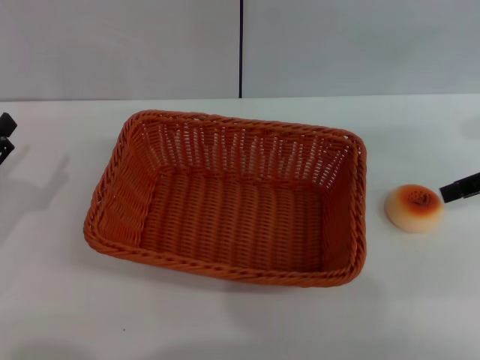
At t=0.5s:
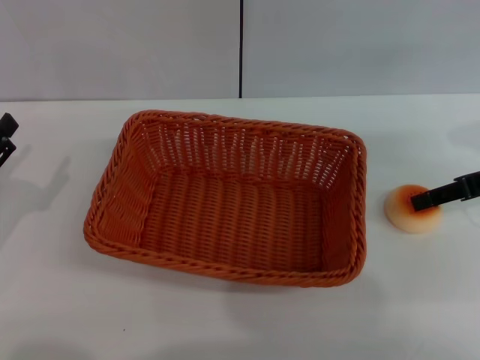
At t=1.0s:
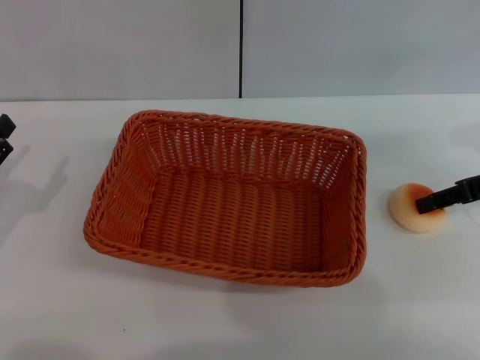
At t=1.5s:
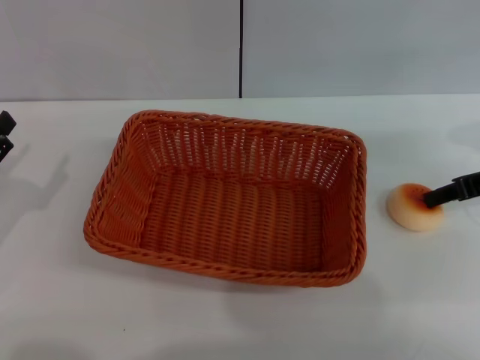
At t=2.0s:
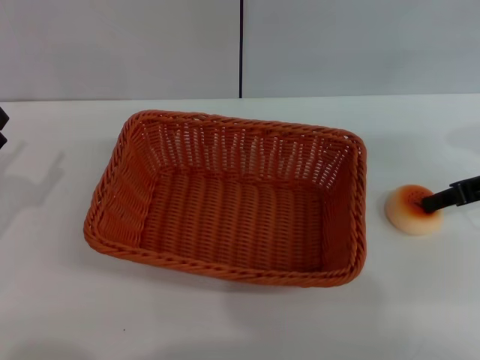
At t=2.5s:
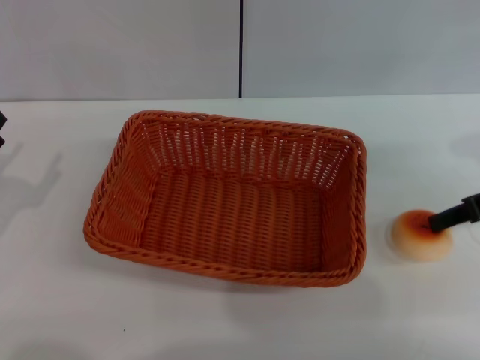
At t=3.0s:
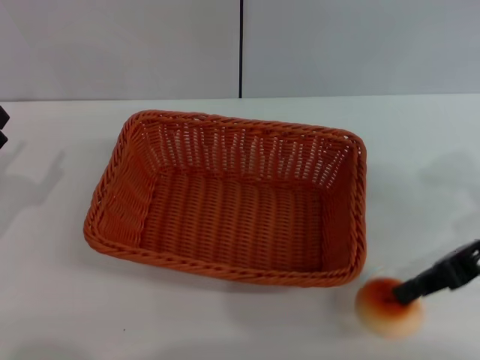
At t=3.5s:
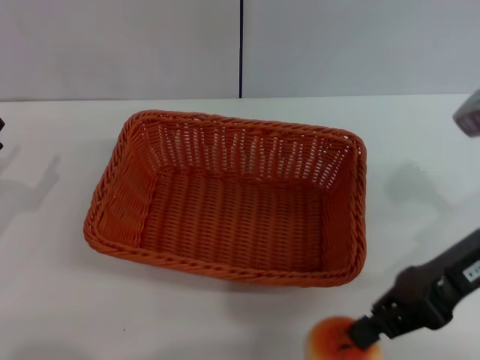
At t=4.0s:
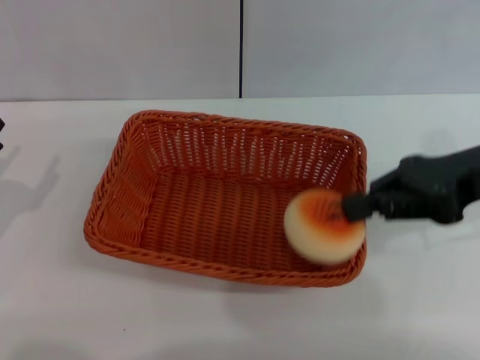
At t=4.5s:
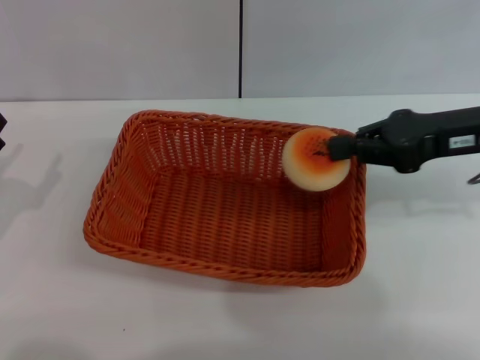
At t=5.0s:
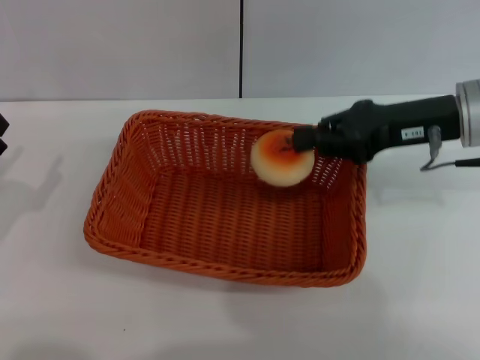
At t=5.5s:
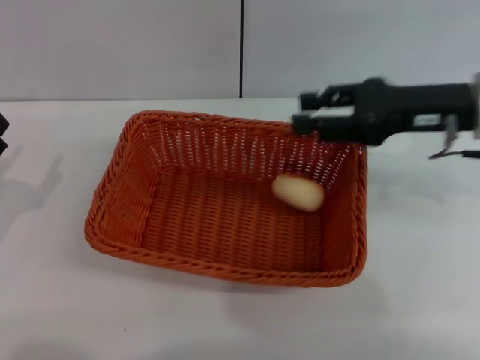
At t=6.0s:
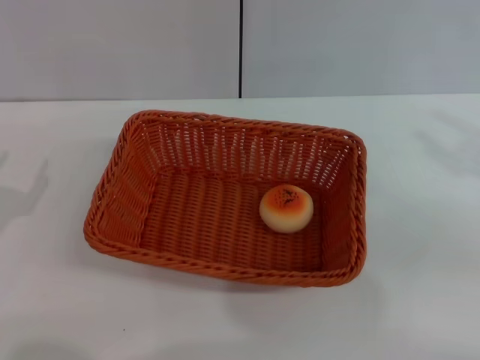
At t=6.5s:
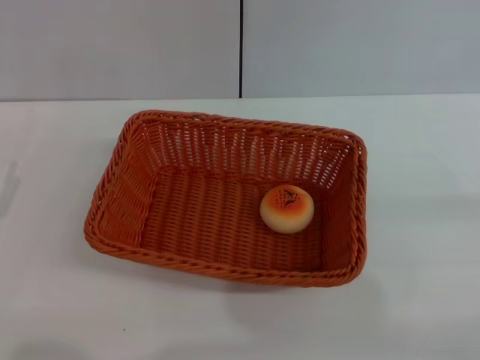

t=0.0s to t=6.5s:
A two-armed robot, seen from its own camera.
Step, t=0.0s to t=2.5s: Pick up the egg yolk pastry with the right gripper.
Step, t=3.0s to t=5.0s: Place the egg yolk pastry into the basket with the right gripper.
t=2.0s to t=4.5s: The right gripper shifts roughly 5 cm to the left.
t=4.5s to t=6.5s: The right gripper goes approximately 20 cm backward, to the right and downward, and opens its fingers.

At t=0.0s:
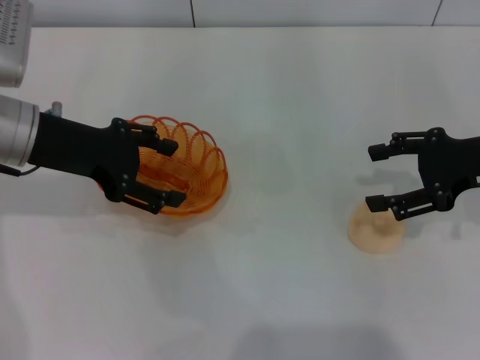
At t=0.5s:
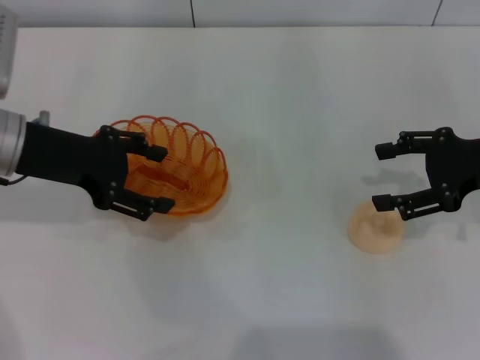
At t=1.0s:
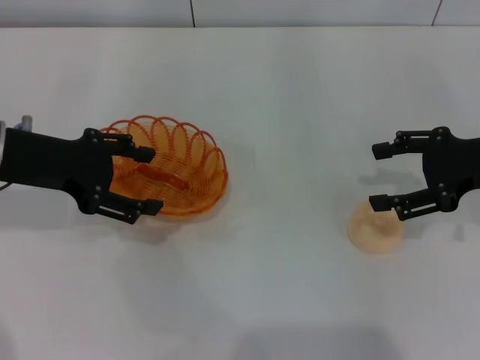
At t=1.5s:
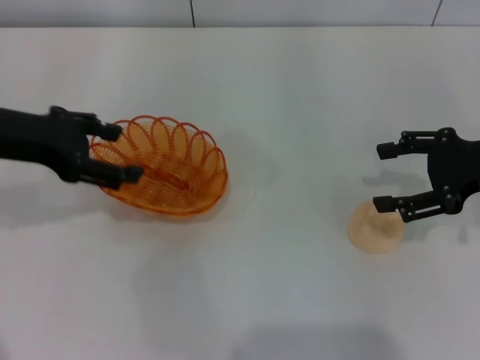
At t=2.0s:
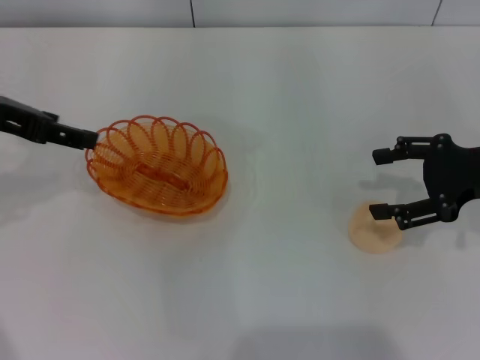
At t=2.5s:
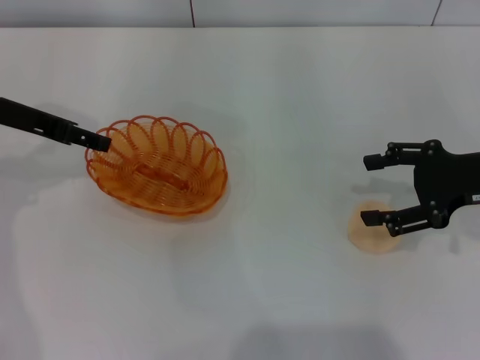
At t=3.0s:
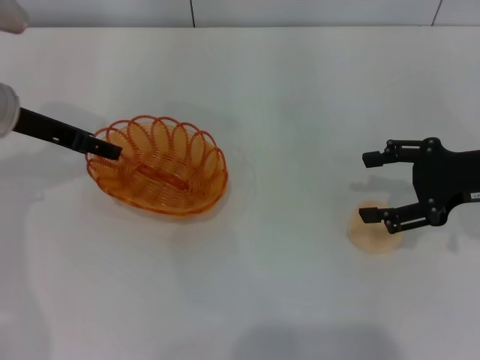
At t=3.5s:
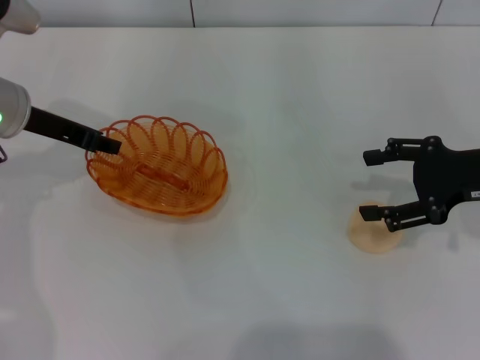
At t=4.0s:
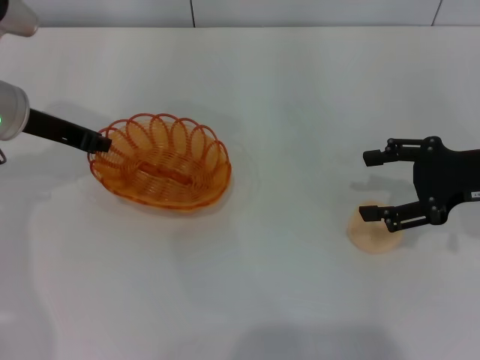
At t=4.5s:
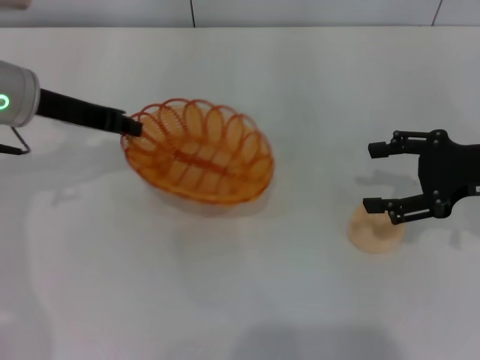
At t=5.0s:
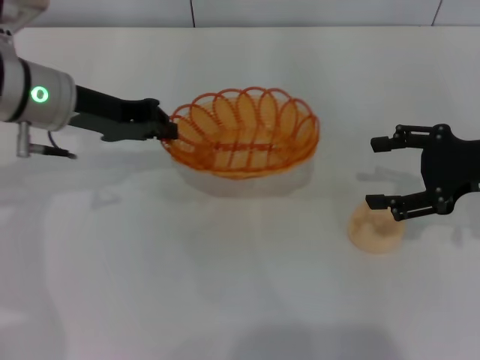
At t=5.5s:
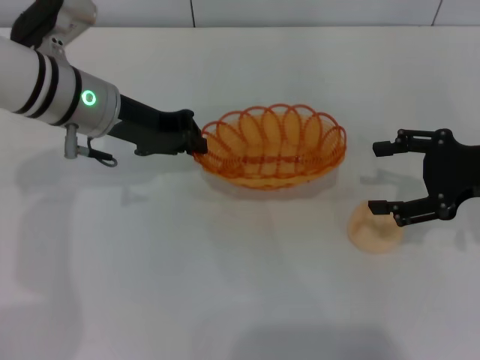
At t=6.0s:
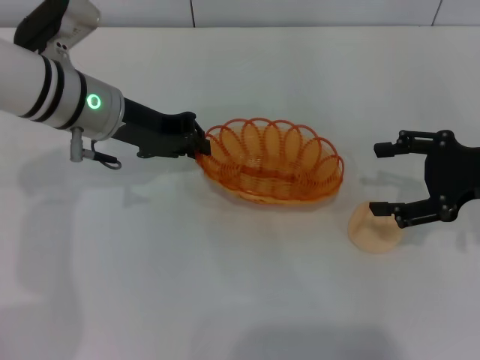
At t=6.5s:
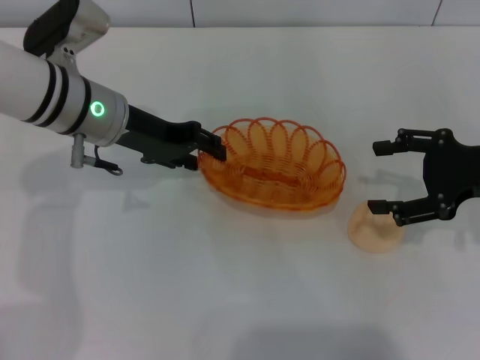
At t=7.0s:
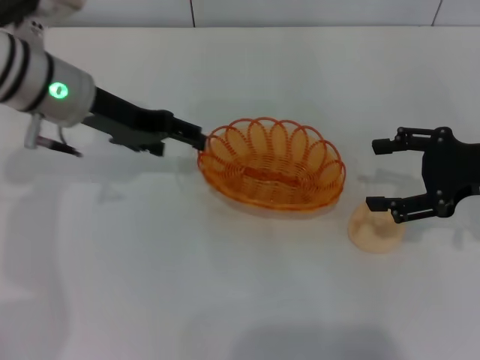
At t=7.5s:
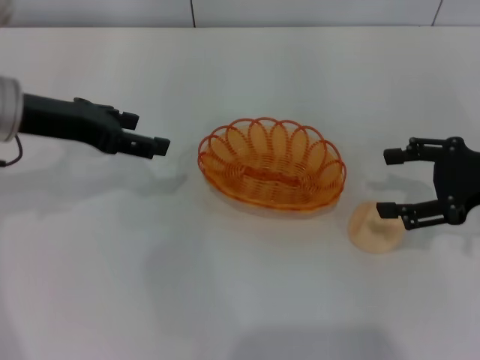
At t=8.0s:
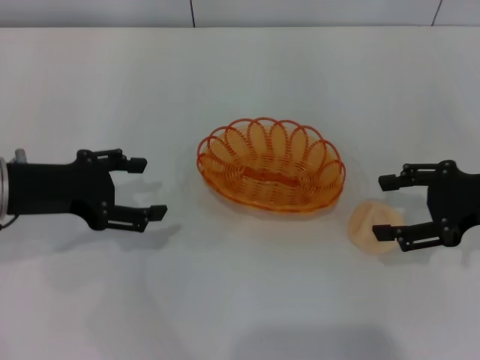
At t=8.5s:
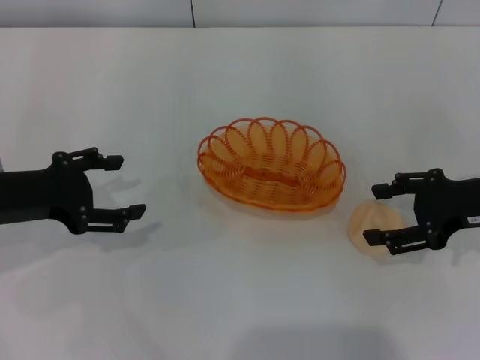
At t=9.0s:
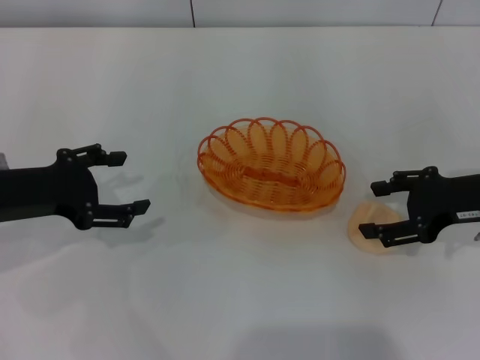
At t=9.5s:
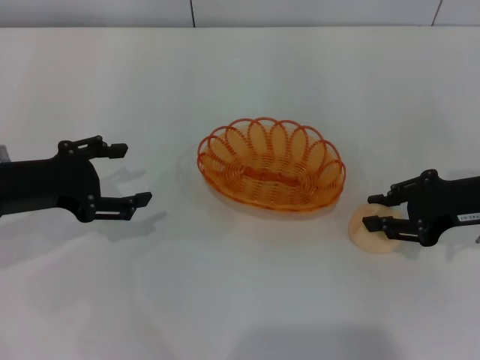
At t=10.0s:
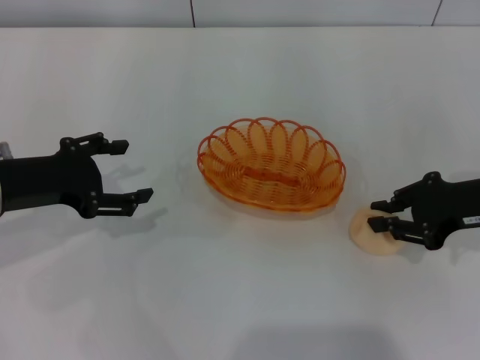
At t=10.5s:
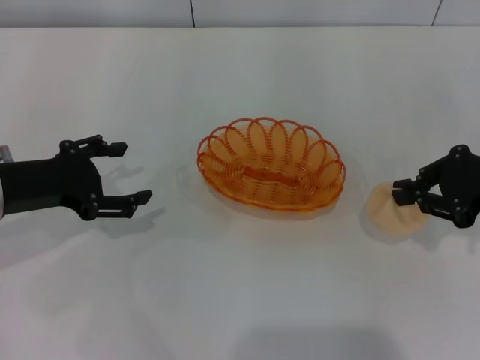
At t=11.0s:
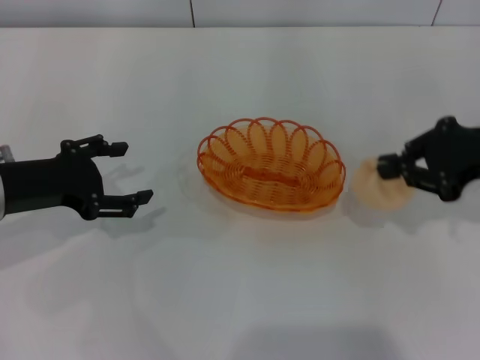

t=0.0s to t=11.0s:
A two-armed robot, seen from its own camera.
Step, t=0.0s to t=5.0s: Pick up the basket with the left gripper.
Step, t=6.0s to t=7.0s: Place the basket in the center of view with the left gripper.
Step, t=7.5s to t=10.5s: Pick up the egg yolk pastry with the right gripper.
t=0.0s to t=2.0s: The left gripper travels upward by roughly 5 cm.
t=2.0s to t=3.5s: The left gripper shifts some 5 cm downward.
t=3.5s to t=5.5s: The left gripper moves to the right, some 10 cm, and closes.
t=5.5s to t=7.5s: The left gripper heads to the left, covering approximately 10 cm, and opens its fingers.
t=7.5s to t=9.0s: The left gripper is displaced backward and downward by approximately 10 cm.
t=9.0s to t=11.0s: The right gripper shifts roughly 5 cm upward, and closes.

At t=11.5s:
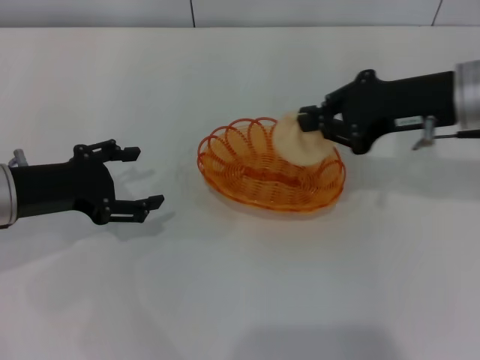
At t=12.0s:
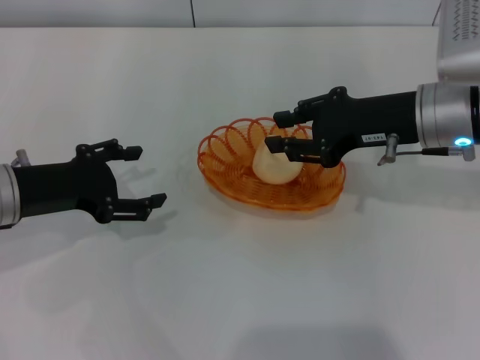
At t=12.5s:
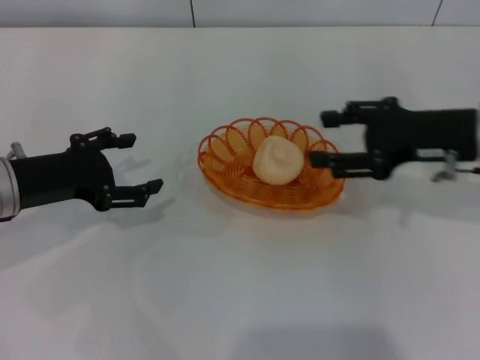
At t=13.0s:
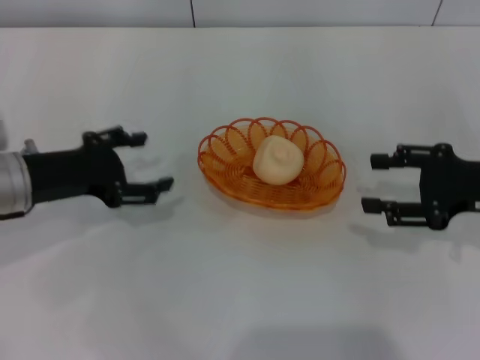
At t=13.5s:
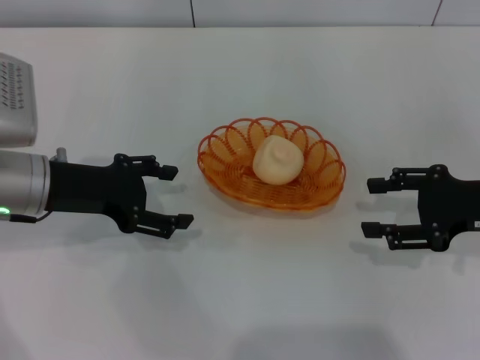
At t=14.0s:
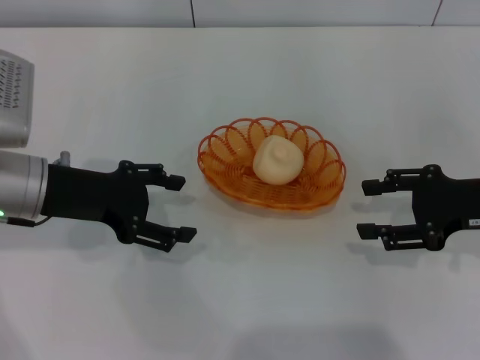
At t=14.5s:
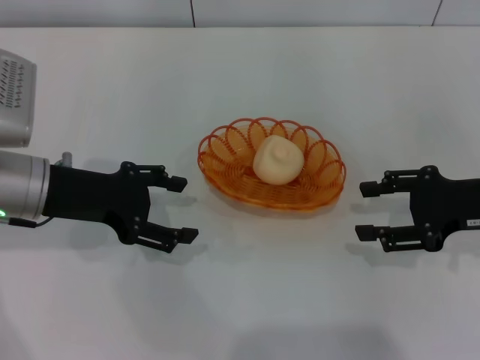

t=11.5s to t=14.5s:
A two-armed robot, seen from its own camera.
Step, t=11.5s to t=12.5s: Place the egg yolk pastry into the basket with the right gripper.
t=11.5s to t=13.0s: The right gripper is displaced to the right, downward and backward by approximately 10 cm, and opens up.
